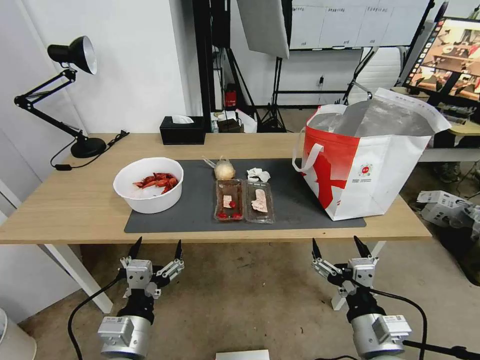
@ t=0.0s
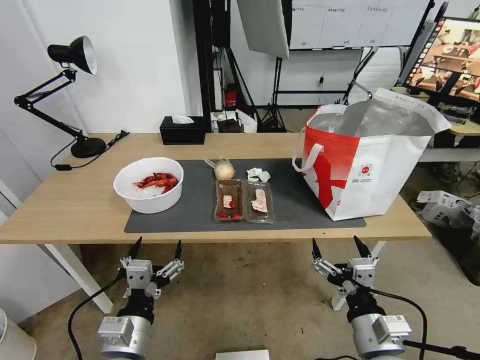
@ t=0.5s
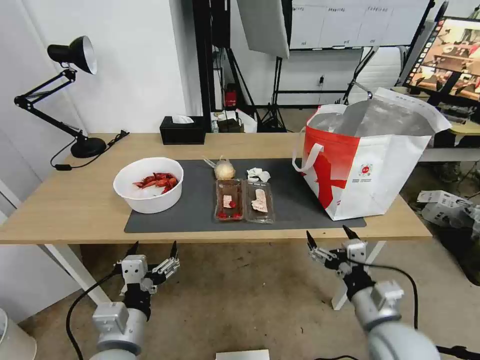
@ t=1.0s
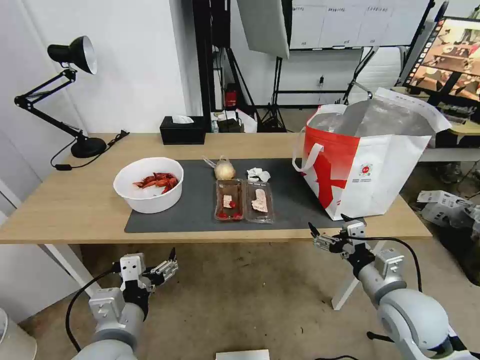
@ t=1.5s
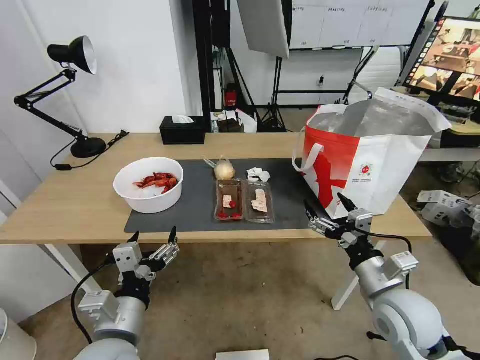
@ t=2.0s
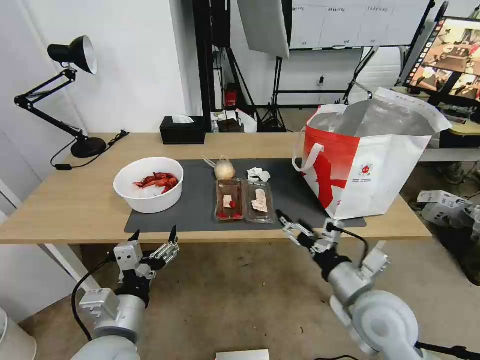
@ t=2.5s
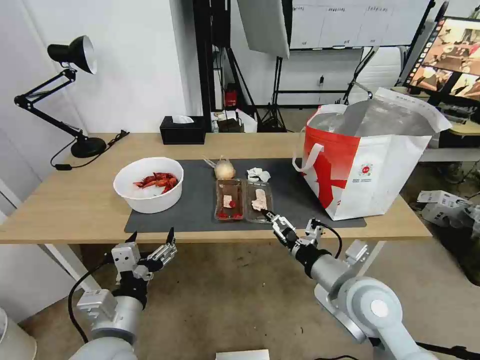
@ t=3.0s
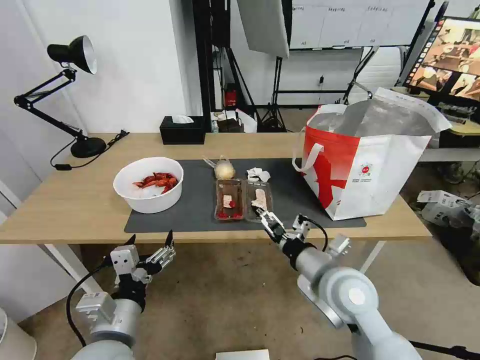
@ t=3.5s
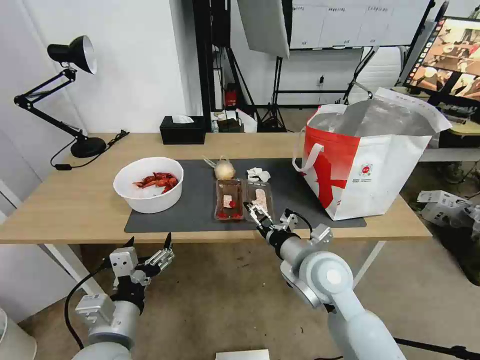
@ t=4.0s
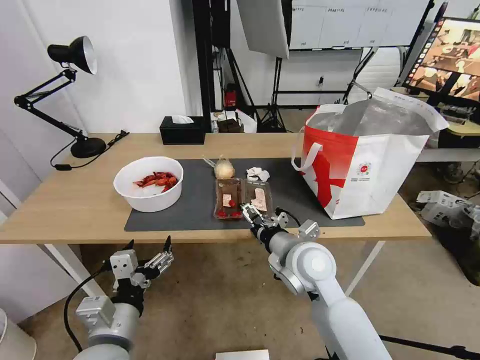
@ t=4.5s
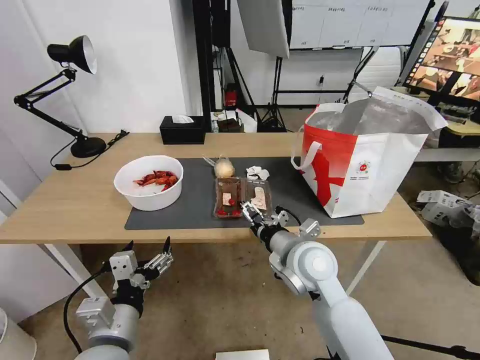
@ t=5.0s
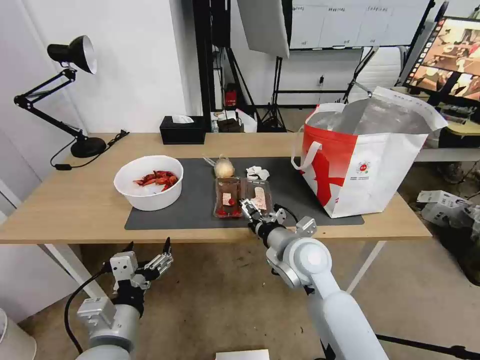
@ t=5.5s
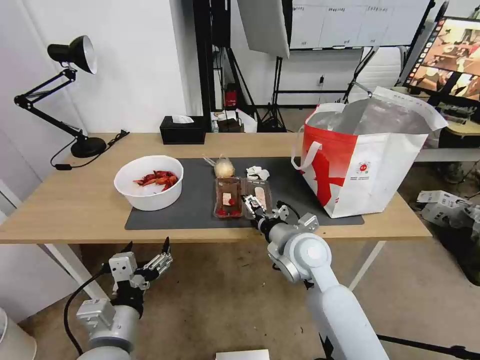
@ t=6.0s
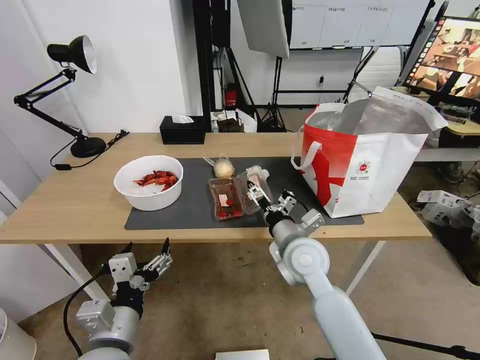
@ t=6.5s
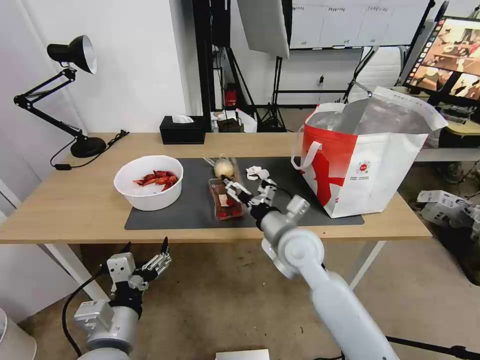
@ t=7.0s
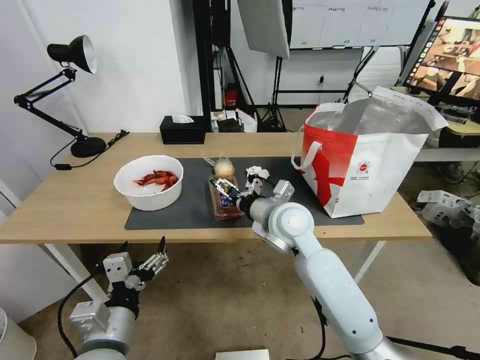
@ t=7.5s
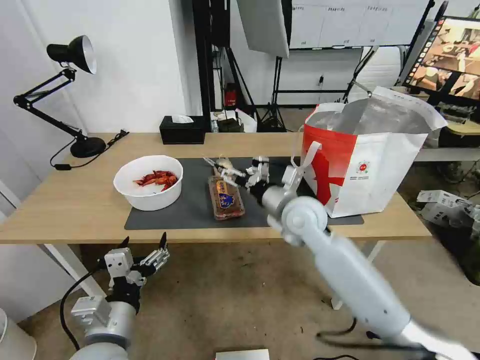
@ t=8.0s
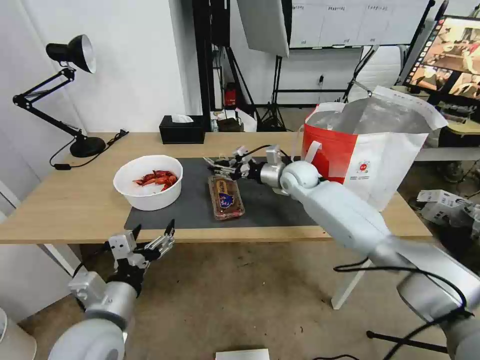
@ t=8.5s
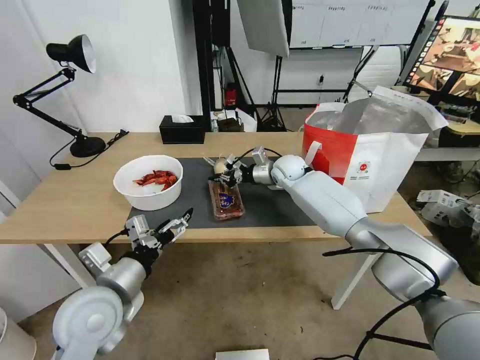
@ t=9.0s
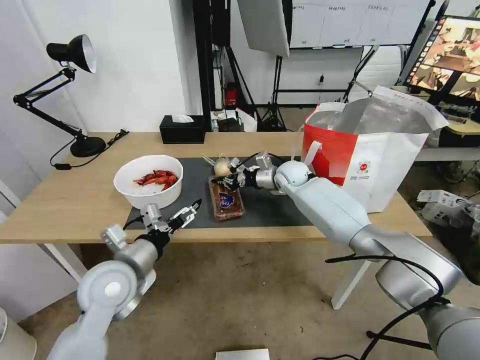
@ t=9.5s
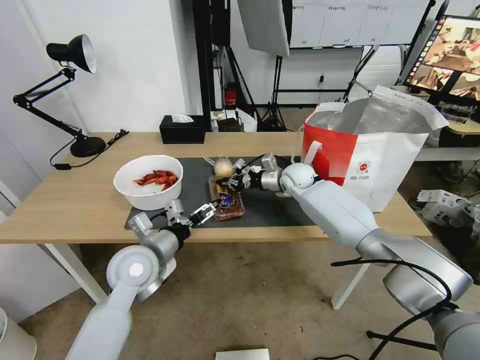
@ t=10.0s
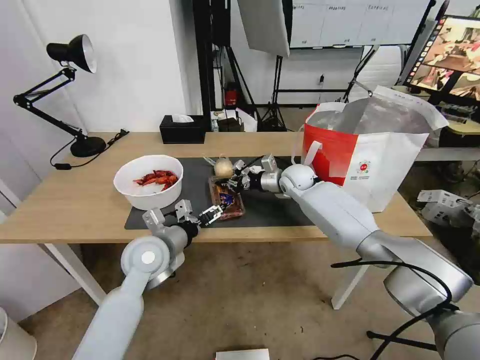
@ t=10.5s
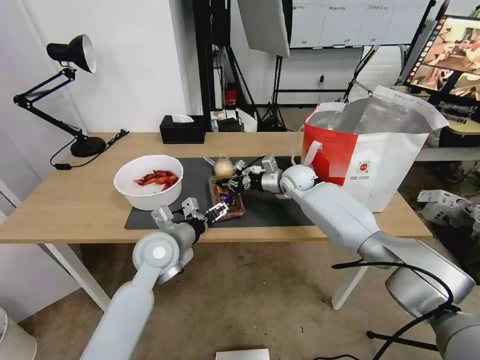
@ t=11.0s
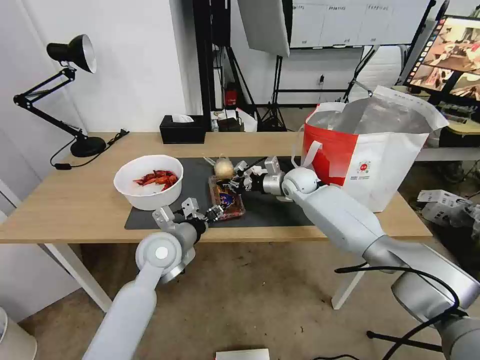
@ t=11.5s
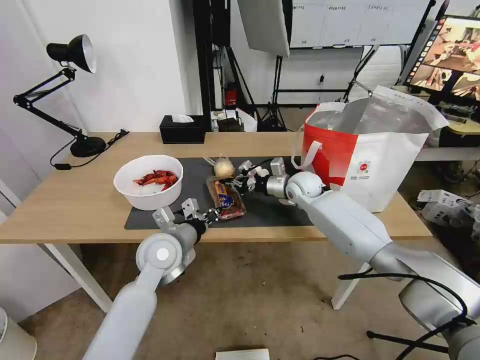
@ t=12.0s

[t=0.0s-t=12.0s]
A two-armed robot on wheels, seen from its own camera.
Task of the whole recording: Pick up the trash from the table and place it into the takeout bag.
t=2.0s to t=4.0s: The right gripper moves to the left and forward, approximately 15 cm.
t=4.0s to t=6.0s: The right gripper moves approximately 5 cm.
t=6.0s to t=8.0s: The right gripper heads forward, covering some 10 cm.
t=8.0s to t=10.0s: The grippers both shift forward by about 15 cm. The right gripper closes.
t=10.0s to t=12.0s: The left gripper ends up about 5 cm from where it was, and closes up.

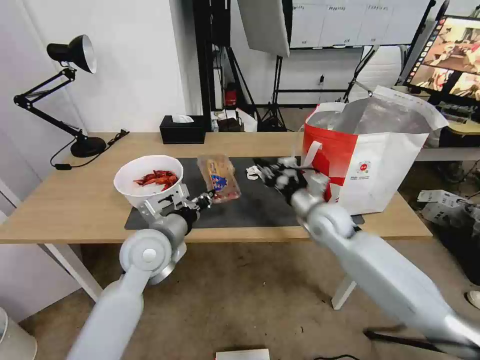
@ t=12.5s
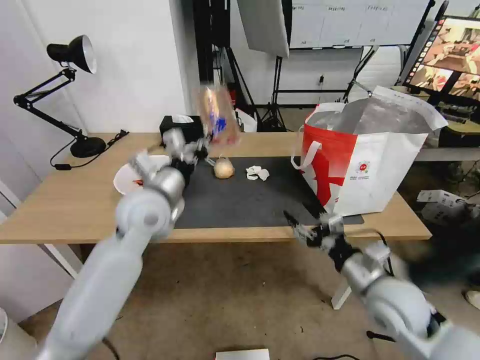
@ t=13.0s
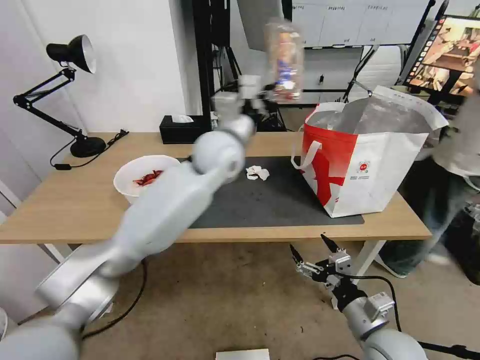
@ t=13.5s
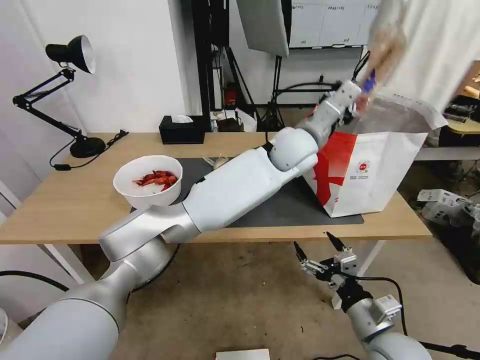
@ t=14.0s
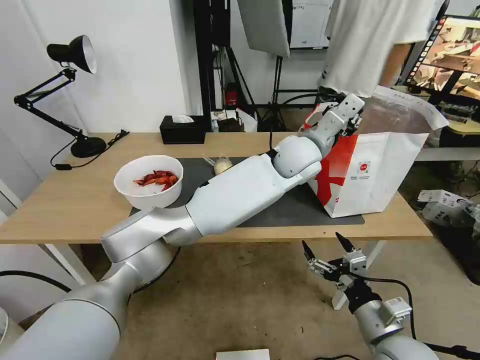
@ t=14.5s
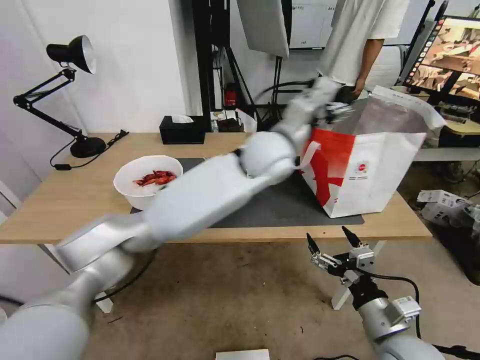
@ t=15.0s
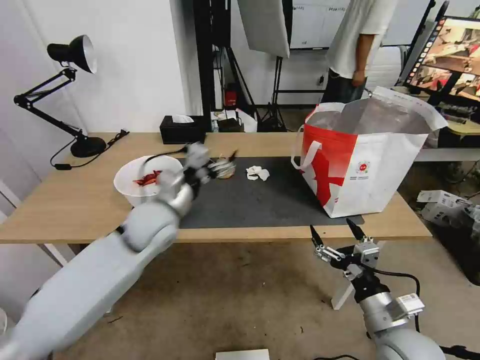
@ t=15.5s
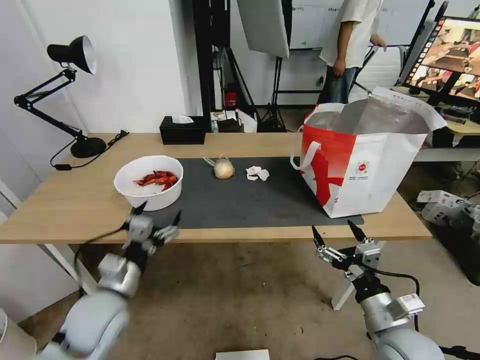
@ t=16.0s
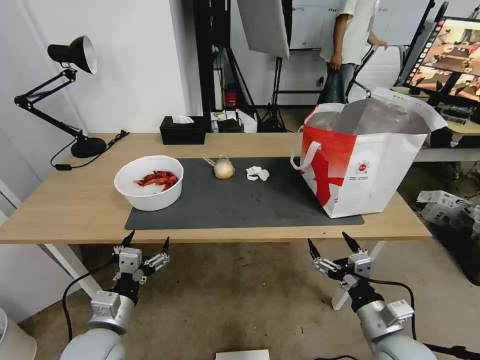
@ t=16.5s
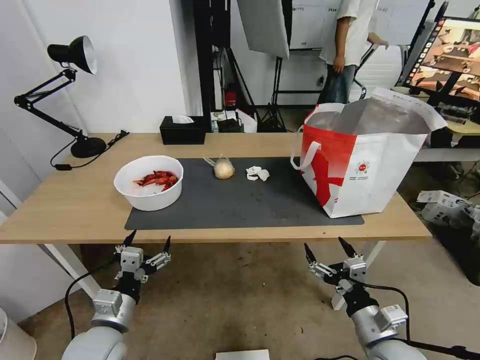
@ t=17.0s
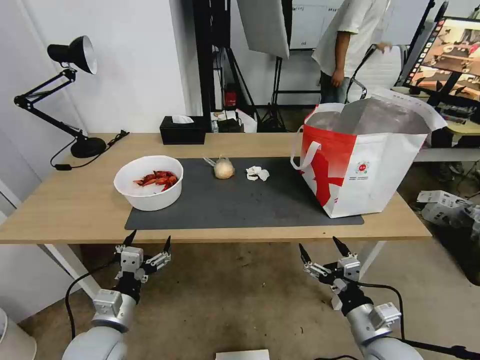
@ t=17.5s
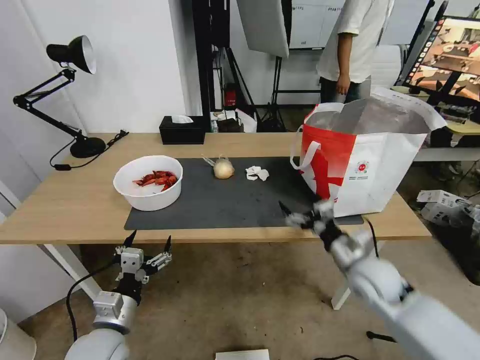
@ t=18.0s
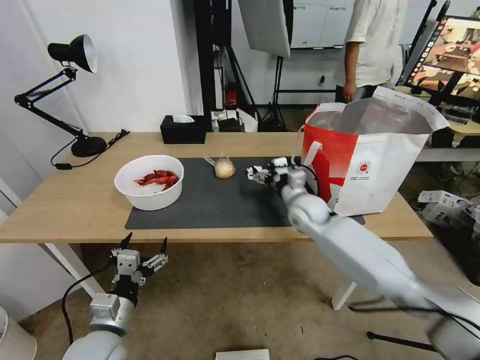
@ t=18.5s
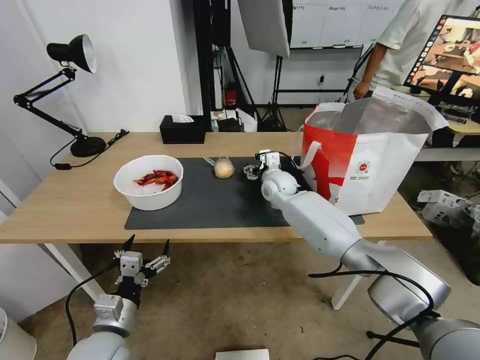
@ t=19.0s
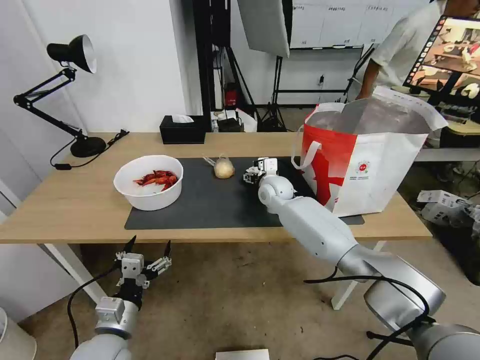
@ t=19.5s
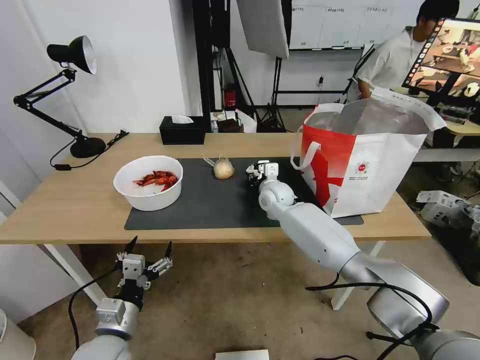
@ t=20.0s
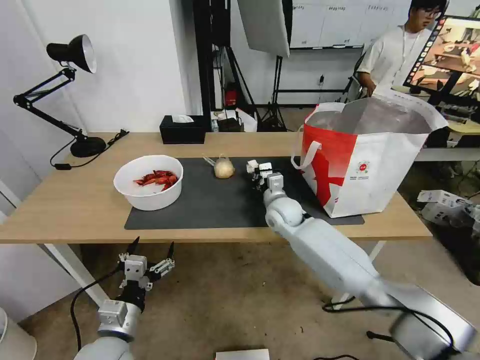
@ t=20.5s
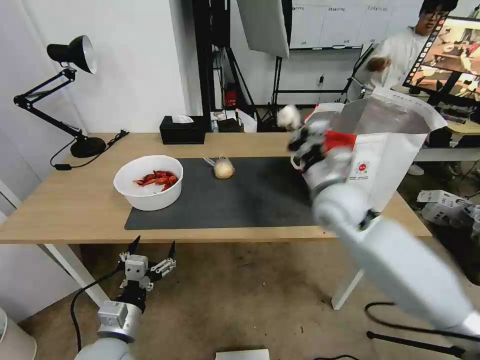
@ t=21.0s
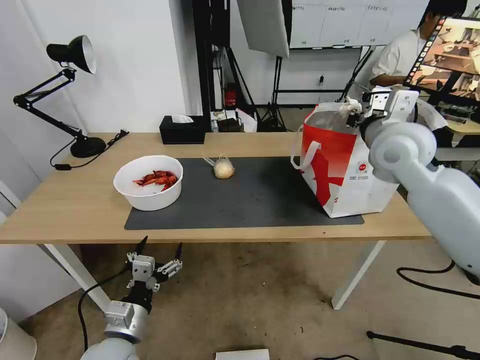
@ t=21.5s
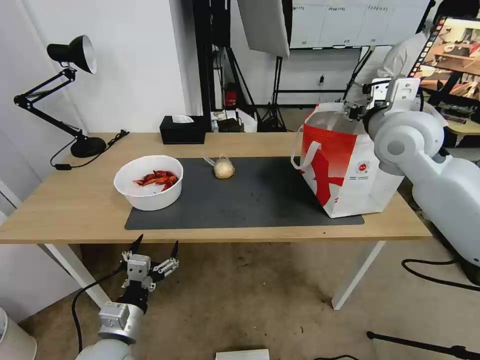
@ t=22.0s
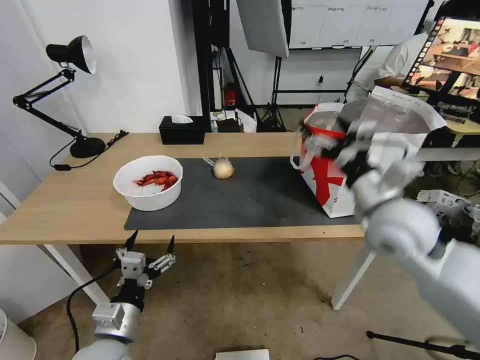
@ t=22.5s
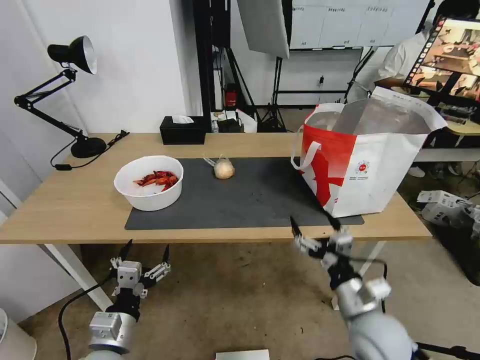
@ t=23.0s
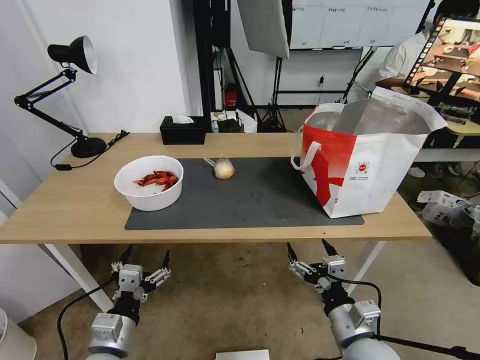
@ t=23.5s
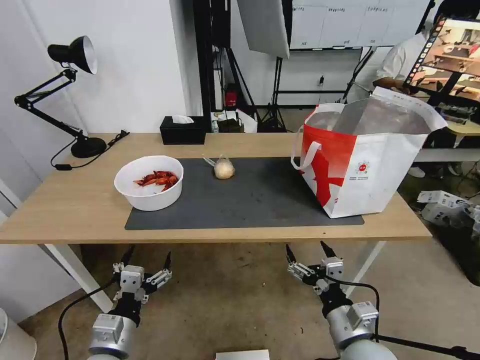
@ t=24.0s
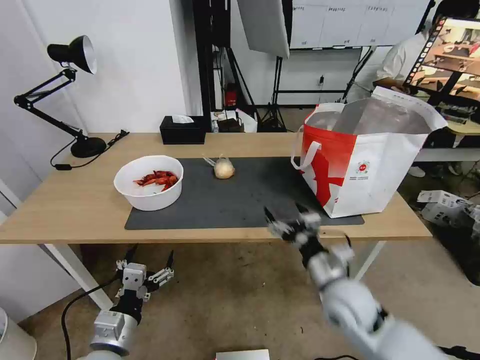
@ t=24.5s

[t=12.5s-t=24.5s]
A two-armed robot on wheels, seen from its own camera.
Task of the whole recording: Pick up the trash from the table and place it into the takeout bag.
t=12.5s to t=14.5s: The left gripper shifts roughly 35 cm to the right, forward and upward; the right gripper heads backward, covering approximately 30 cm, and opens.
t=14.5s to t=16.5s: The left gripper goes some 50 cm to the left, backward and downward, and opens its fingers.
t=16.5s to t=18.5s: The right gripper heads forward, covering approximately 30 cm.
t=18.5s to t=20.5s: The right gripper shifts some 5 cm to the left, reaches approximately 10 cm forward, then returns, and closes its fingers.
t=20.5s to t=22.5s: The right gripper heads backward, upward and to the right, covering about 30 cm, and opens up.
t=22.5s to t=24.5s: The right gripper shifts approximately 20 cm downward and backward.

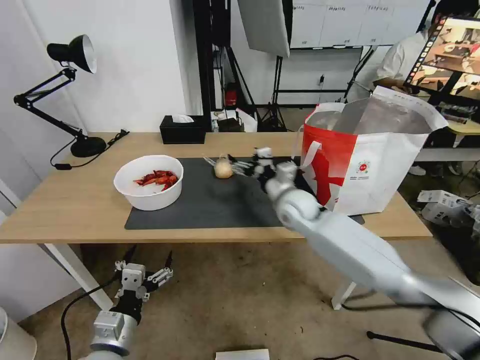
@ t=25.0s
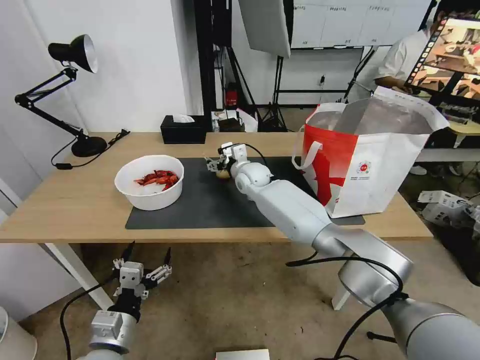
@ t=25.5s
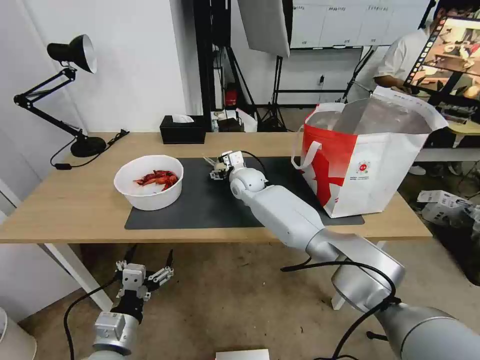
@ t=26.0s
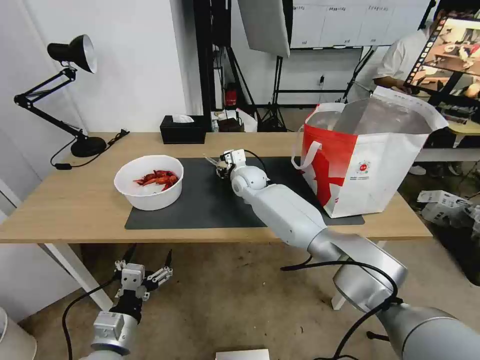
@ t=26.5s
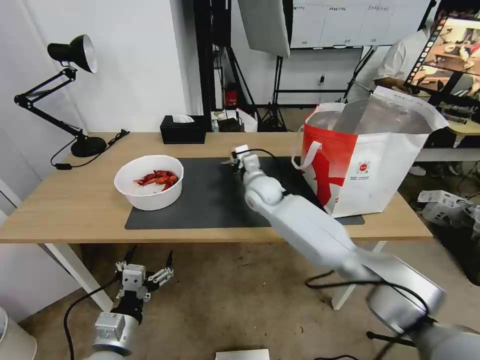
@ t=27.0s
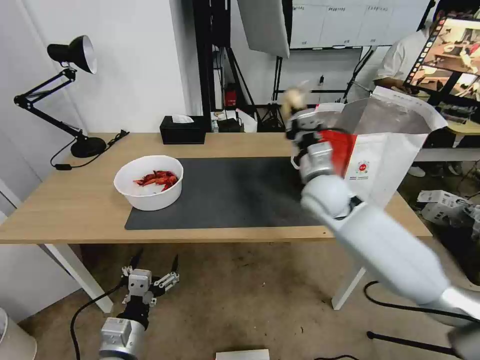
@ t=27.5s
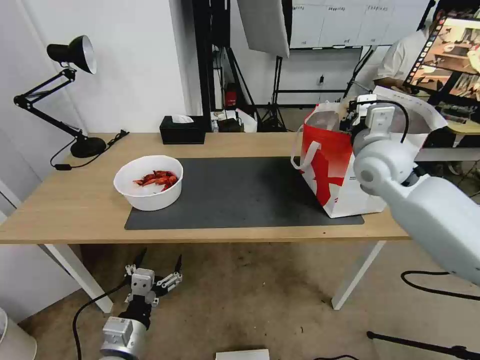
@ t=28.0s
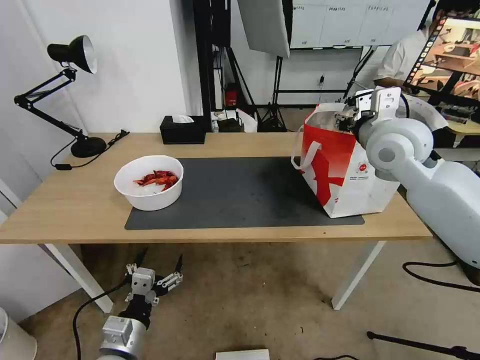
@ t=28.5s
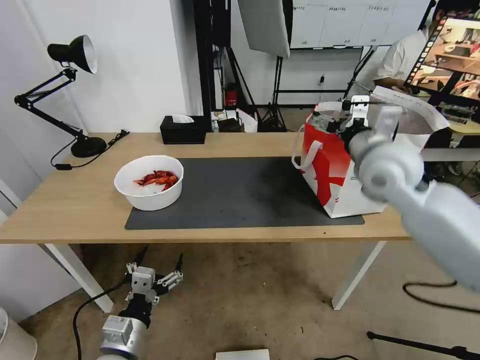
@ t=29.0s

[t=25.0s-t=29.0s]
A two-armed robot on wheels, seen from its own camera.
Task of the whole recording: Pick up the trash from the table and place it into the takeout bag.
t=25.0s to t=27.0s: The right gripper moves to the left, some 5 cm, and closes.
t=27.0s to t=29.0s: The right gripper heads to the right, upward and backward, covering about 30 cm, and opens up.
